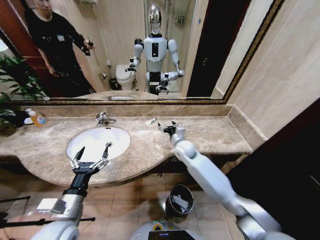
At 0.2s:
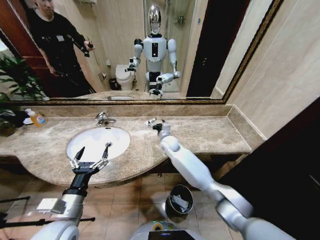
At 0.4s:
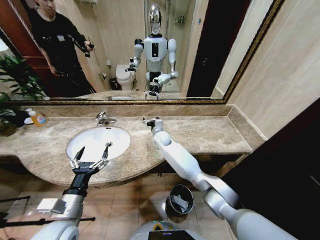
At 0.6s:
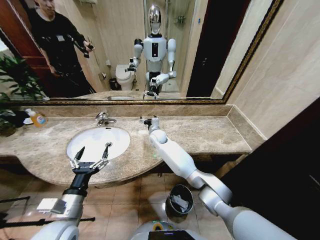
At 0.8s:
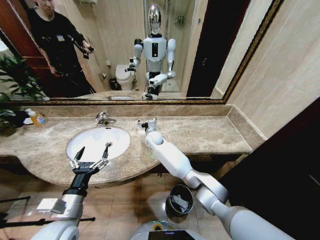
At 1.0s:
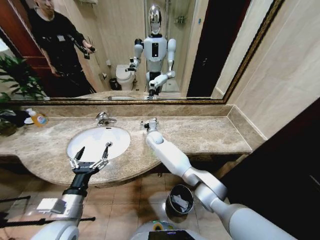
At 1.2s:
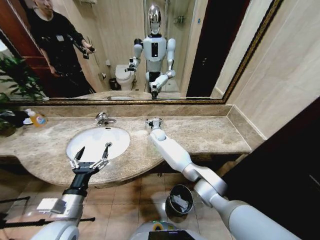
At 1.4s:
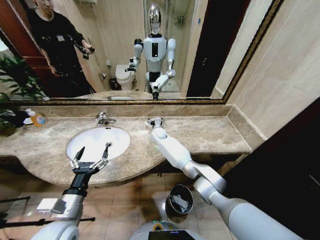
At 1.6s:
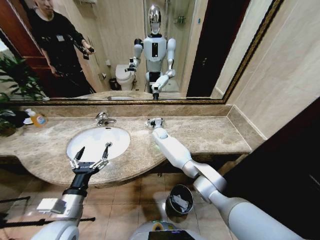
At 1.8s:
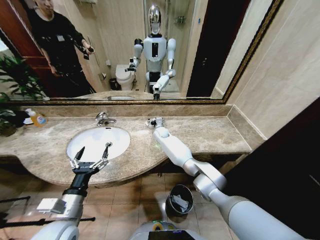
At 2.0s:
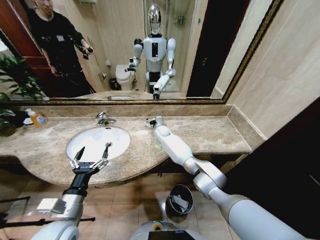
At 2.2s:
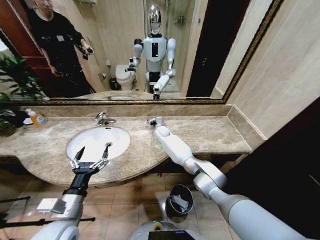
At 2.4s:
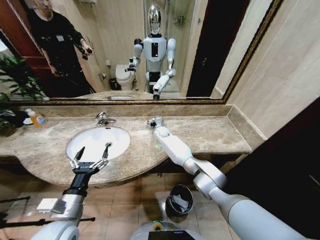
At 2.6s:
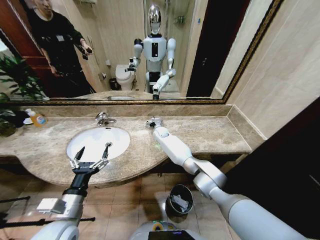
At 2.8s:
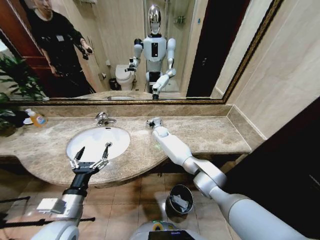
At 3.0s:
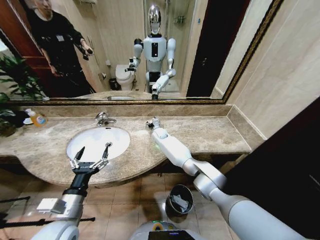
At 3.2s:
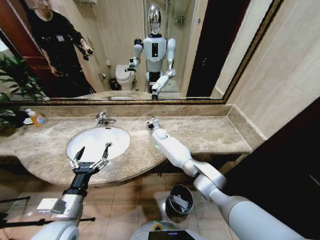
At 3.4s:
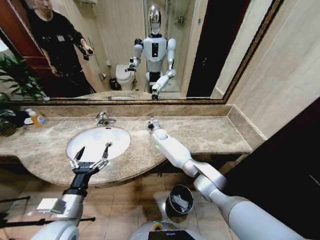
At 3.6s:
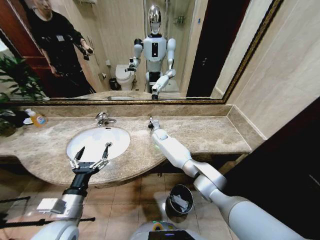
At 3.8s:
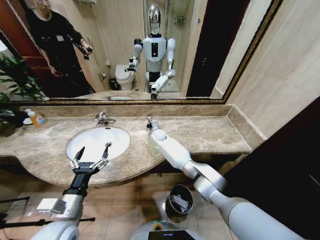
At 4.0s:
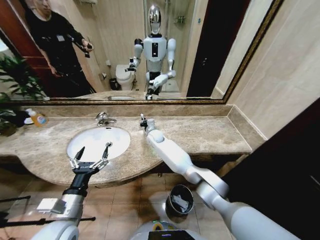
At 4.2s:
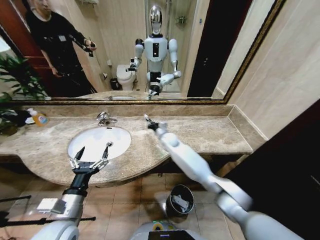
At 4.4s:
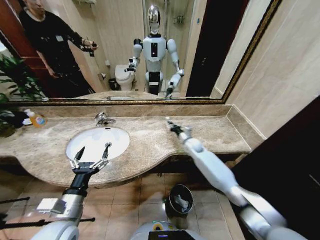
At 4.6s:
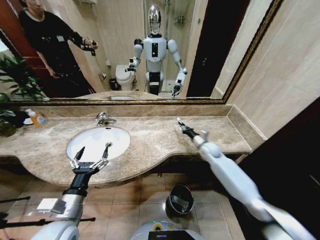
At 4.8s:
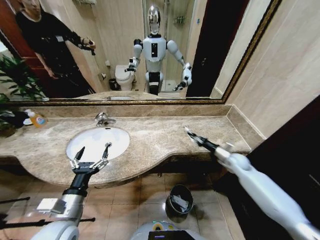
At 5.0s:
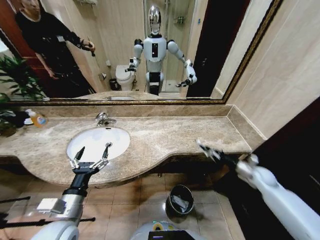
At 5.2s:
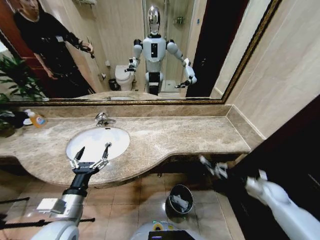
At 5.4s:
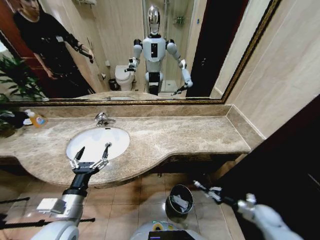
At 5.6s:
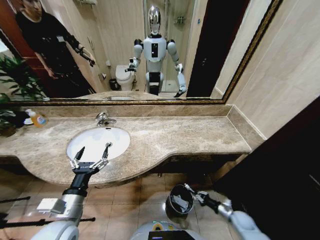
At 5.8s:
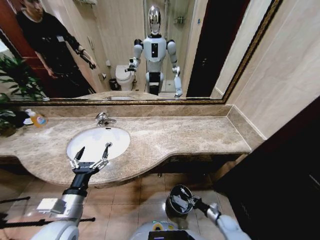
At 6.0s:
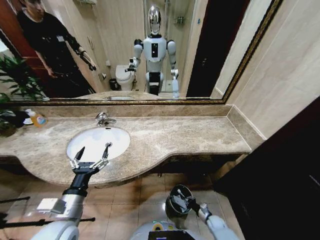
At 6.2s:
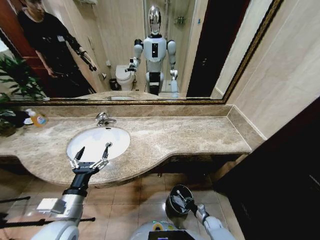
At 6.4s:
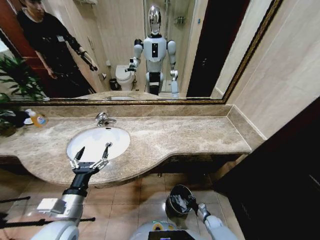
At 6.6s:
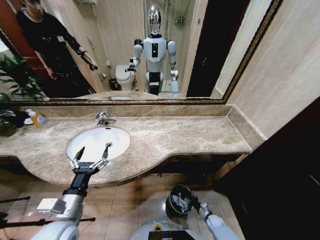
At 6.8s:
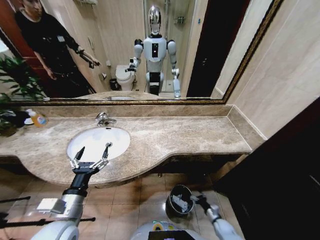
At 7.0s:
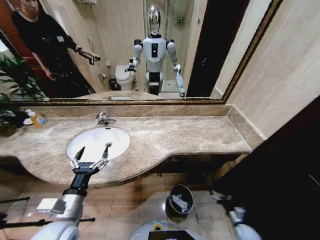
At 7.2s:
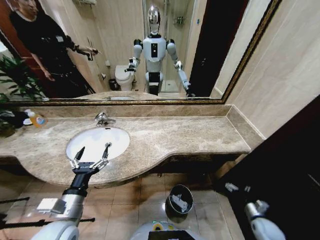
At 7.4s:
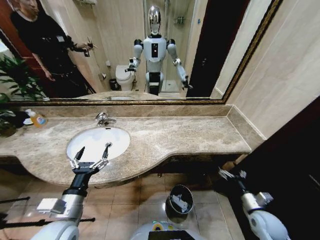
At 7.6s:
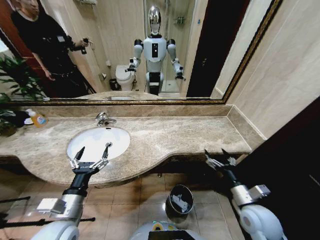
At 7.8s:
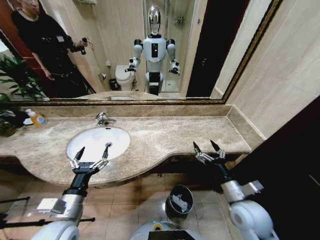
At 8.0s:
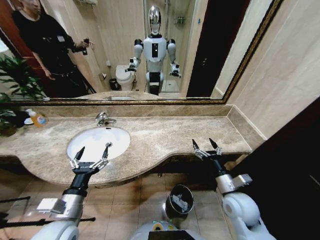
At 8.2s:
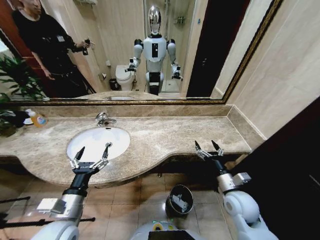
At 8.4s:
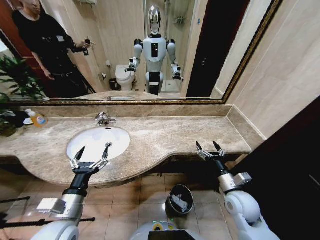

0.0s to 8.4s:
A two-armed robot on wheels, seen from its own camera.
Task of the whole recording: Pick up the trash from the sink and place it in the trash bin.
0.0s to 1.4s: The right gripper goes about 20 cm forward and to the left.
1.4s to 2.8s: There are only small adjustments of the grippers.
2.8s to 4.2s: The right gripper is displaced backward and to the right by some 10 cm, and closes.
4.2s to 5.6s: The right gripper goes approximately 60 cm to the right, backward and downward.
5.6s to 7.0s: The right gripper travels downward and backward by approximately 5 cm, and opens up.
7.0s to 8.4s: The right gripper goes some 35 cm upward and to the left.

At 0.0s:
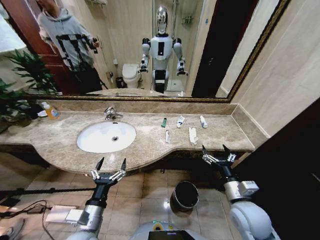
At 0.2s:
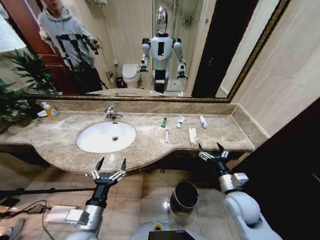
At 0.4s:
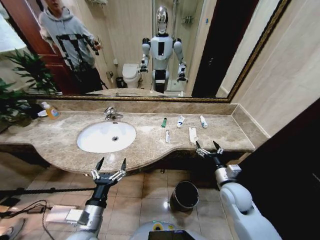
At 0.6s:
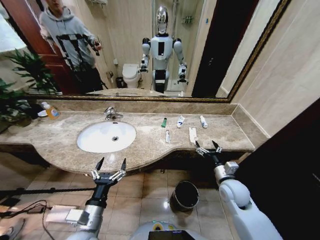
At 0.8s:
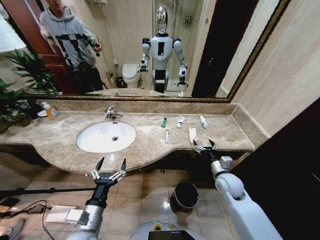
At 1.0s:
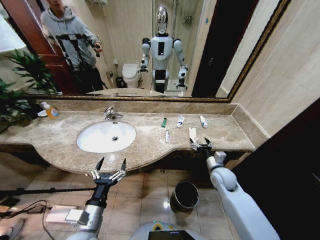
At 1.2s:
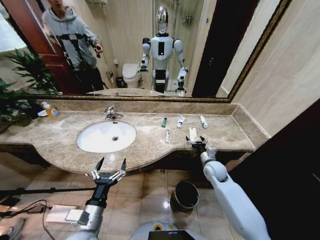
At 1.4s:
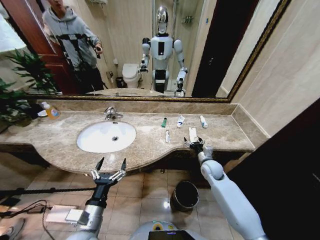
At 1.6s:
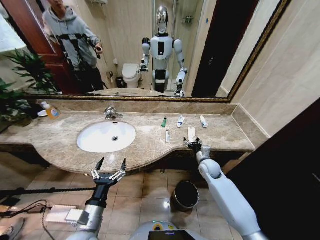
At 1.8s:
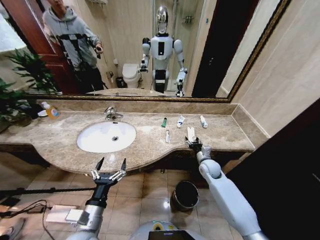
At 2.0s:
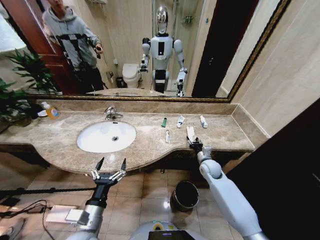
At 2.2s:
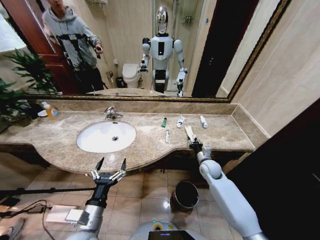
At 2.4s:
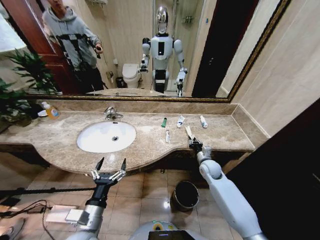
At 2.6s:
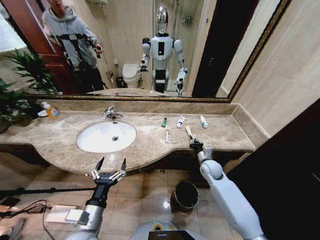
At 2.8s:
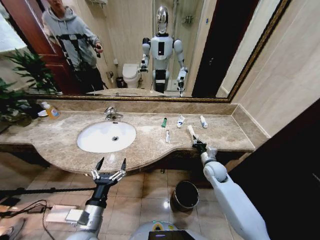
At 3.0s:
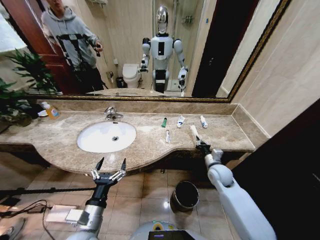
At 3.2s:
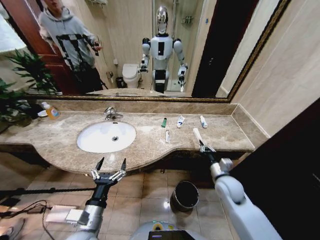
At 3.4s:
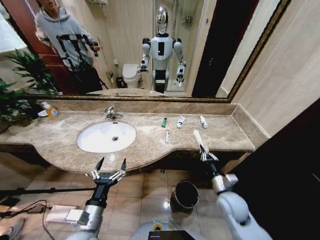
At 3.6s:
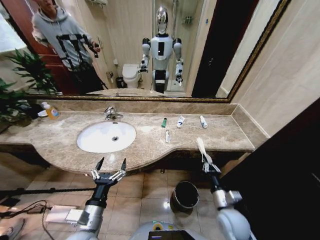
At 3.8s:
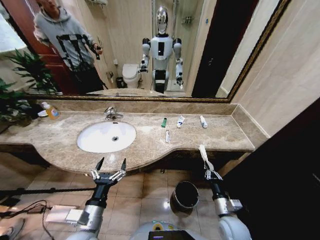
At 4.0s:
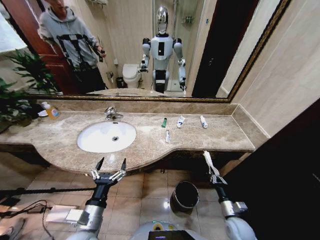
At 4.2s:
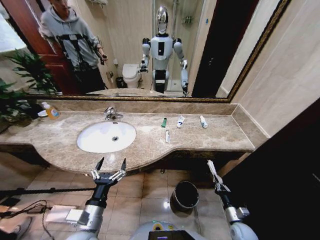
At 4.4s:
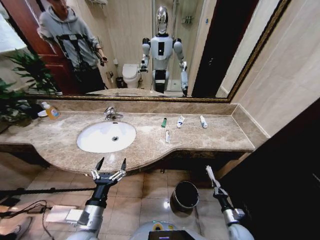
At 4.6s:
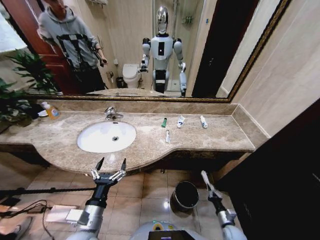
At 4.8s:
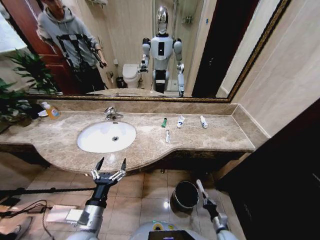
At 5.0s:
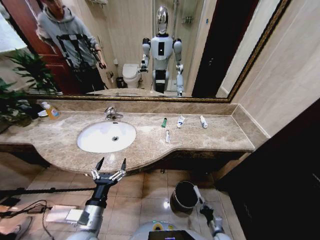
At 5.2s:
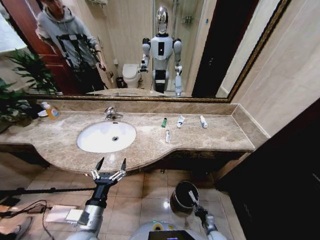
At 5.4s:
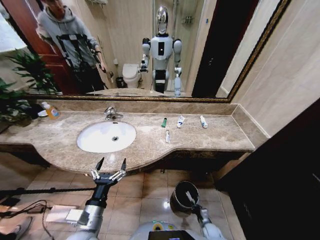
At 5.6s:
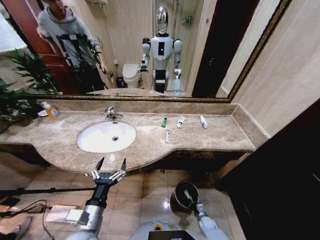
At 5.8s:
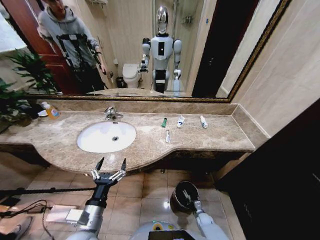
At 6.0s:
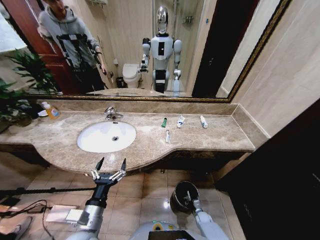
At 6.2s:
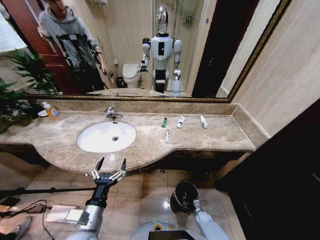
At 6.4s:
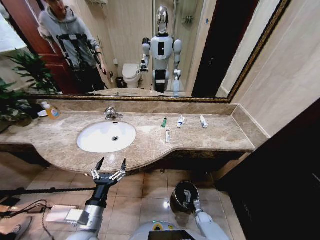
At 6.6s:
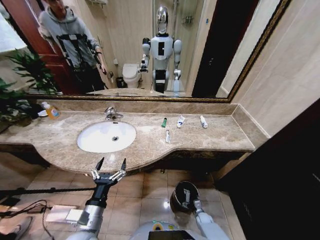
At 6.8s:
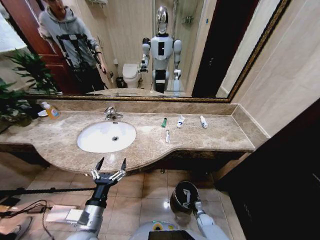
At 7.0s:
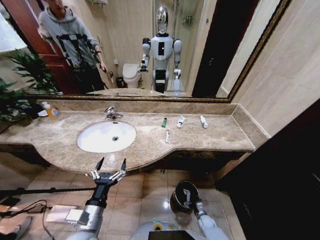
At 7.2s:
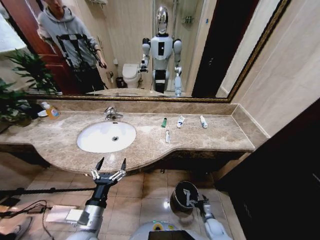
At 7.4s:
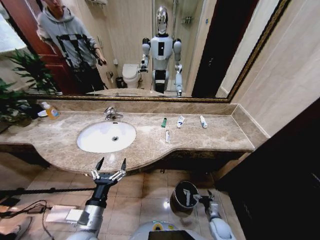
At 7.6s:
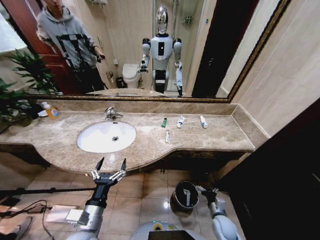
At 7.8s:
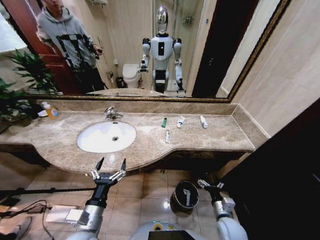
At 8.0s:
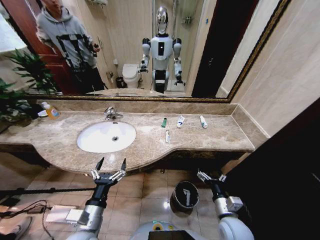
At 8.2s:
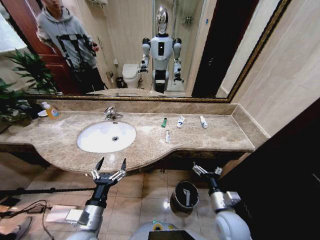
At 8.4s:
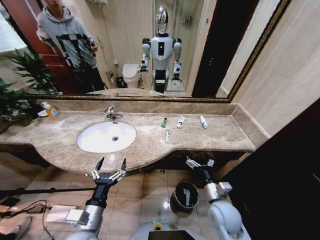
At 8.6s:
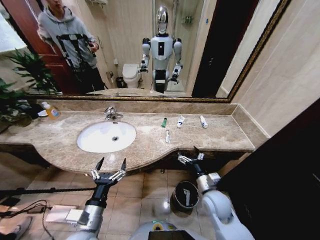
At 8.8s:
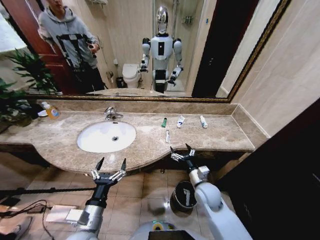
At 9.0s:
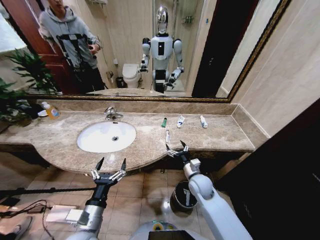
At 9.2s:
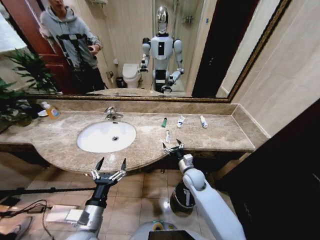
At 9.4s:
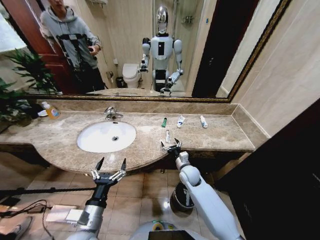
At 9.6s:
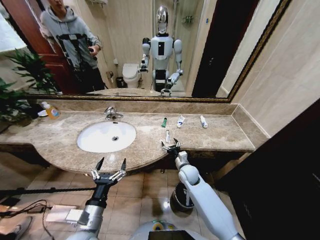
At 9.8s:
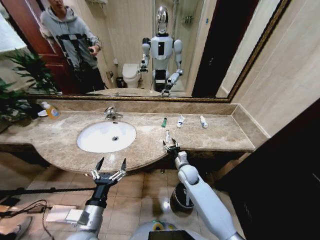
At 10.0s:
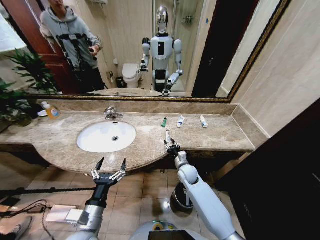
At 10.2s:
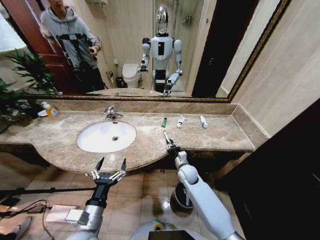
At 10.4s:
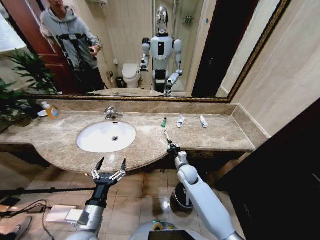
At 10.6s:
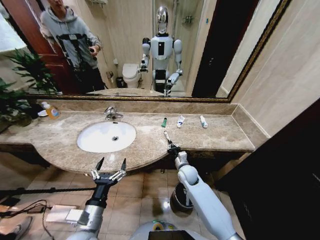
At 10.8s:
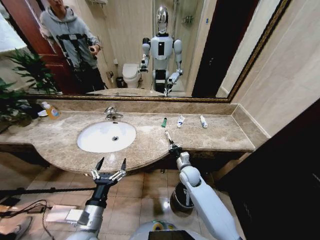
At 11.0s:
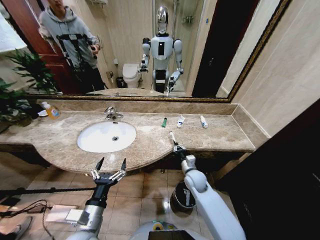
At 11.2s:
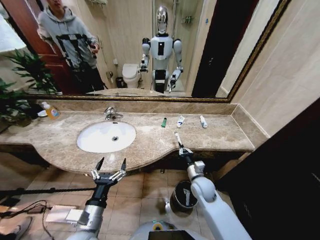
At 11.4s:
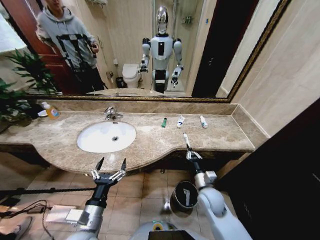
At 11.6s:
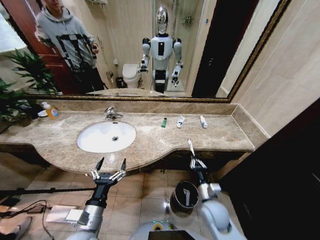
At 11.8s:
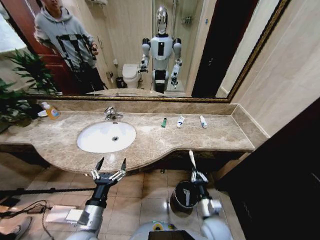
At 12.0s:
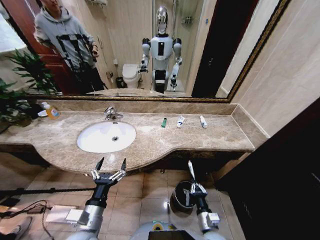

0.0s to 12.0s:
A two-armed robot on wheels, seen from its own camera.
Task of the whole recording: Pick up the trash from the sink and place it in the trash bin.
1.6s to 3.0s: The right gripper shifts some 5 cm backward, and closes.
3.0s to 4.4s: The right gripper travels downward, backward and to the right by approximately 35 cm.
4.4s to 6.0s: The right gripper heads downward, to the left and forward, covering approximately 20 cm.
6.0s to 7.6s: The right gripper is displaced upward by approximately 20 cm, and opens up.
7.6s to 9.0s: The right gripper is displaced upward, forward and to the left by about 25 cm.
9.0s to 10.4s: The right gripper goes some 5 cm forward, and closes its fingers.
10.4s to 12.0s: The right gripper heads backward, covering about 25 cm.

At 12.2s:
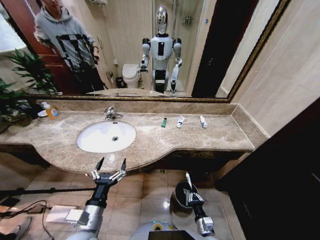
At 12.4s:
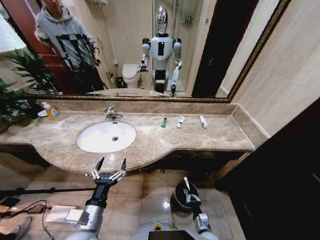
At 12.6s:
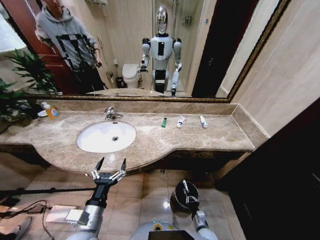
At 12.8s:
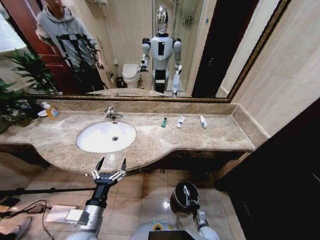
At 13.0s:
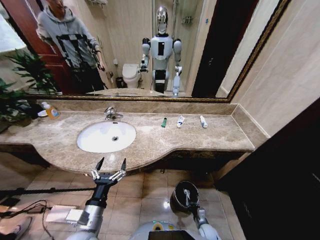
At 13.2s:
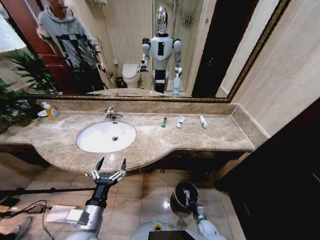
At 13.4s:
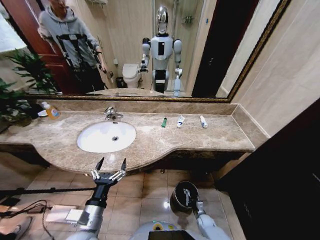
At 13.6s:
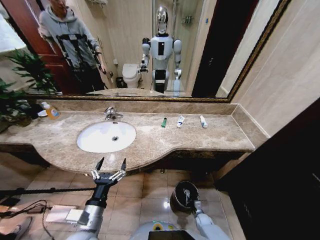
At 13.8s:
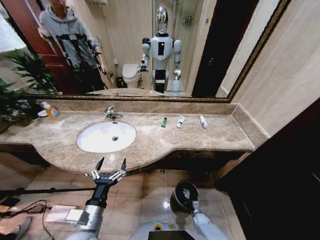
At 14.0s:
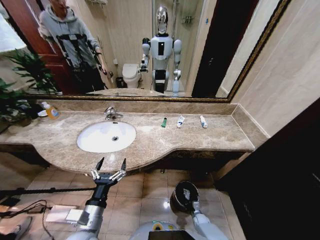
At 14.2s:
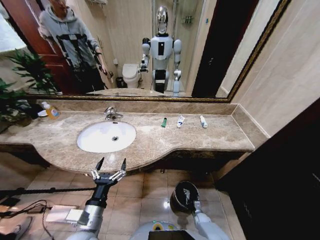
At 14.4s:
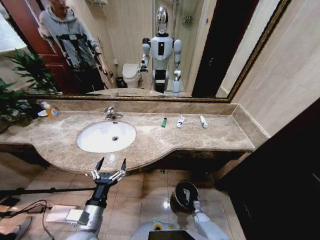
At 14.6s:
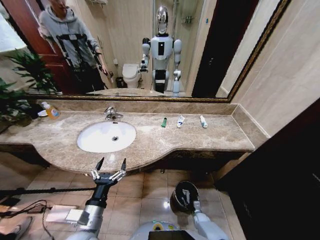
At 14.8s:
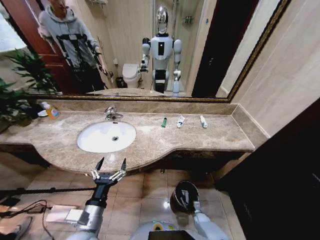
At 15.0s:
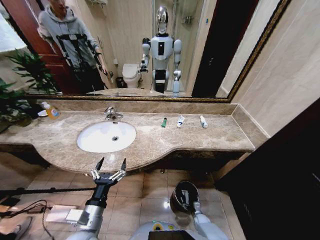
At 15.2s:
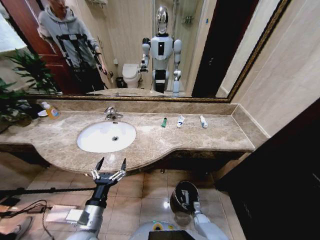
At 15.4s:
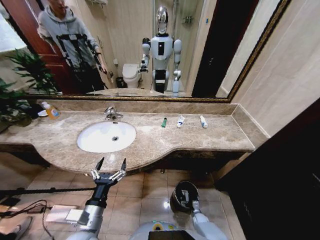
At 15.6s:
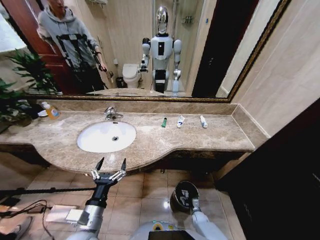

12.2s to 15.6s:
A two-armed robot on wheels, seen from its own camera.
Task of the whole recording: Pick up the trash from the sink and place it in the trash bin.
12.2s to 13.8s: The right gripper shifts some 25 cm downward and forward.
